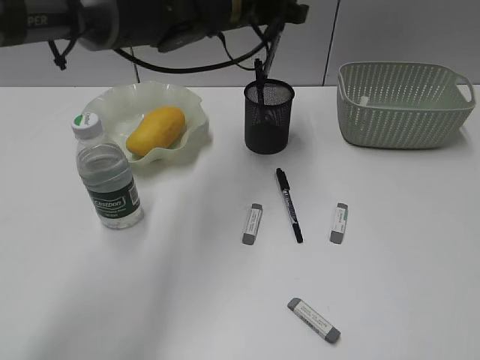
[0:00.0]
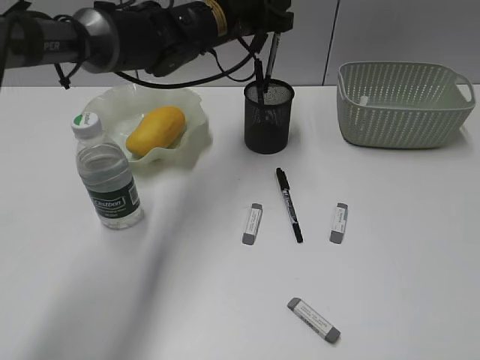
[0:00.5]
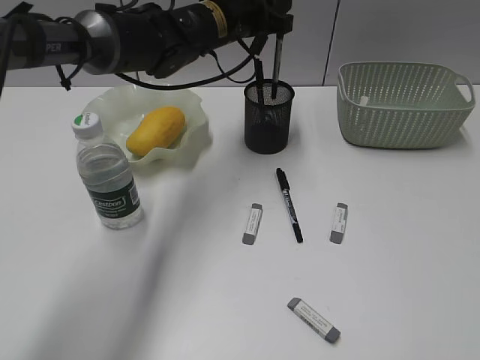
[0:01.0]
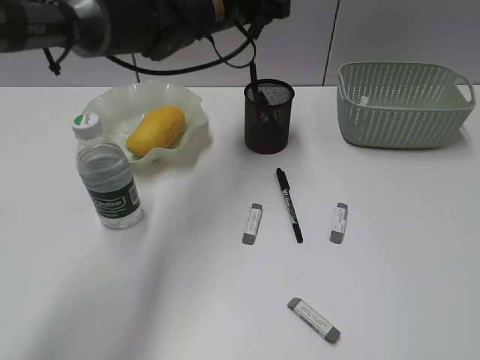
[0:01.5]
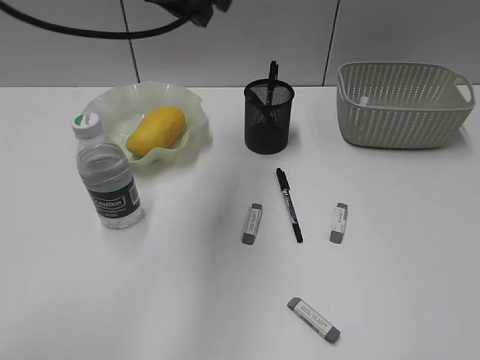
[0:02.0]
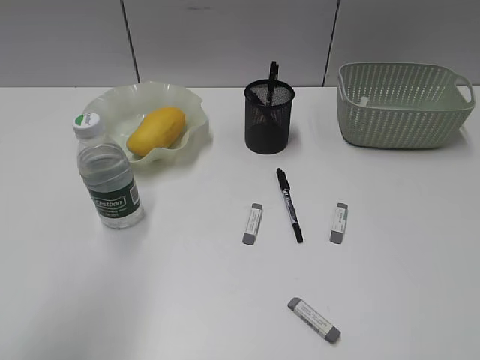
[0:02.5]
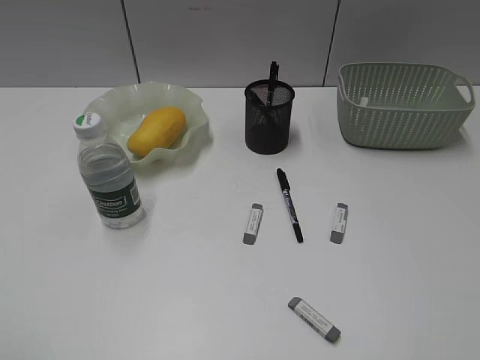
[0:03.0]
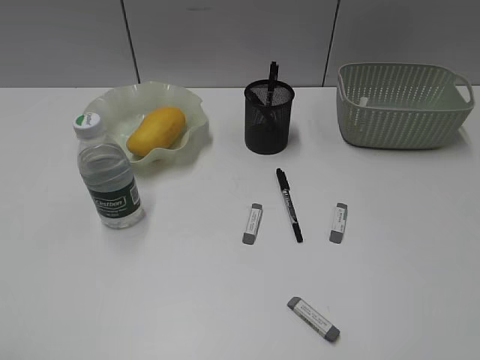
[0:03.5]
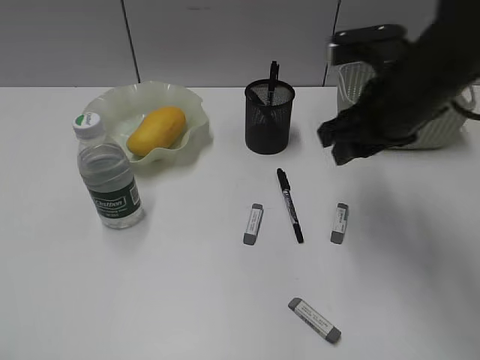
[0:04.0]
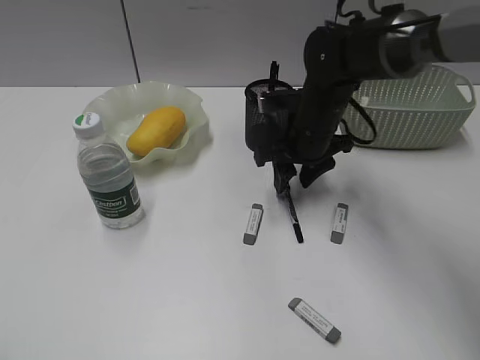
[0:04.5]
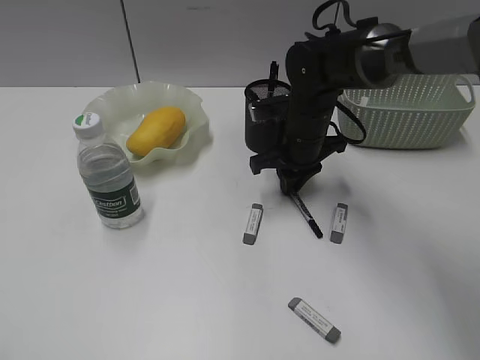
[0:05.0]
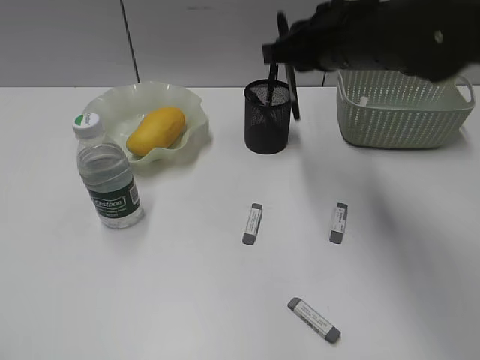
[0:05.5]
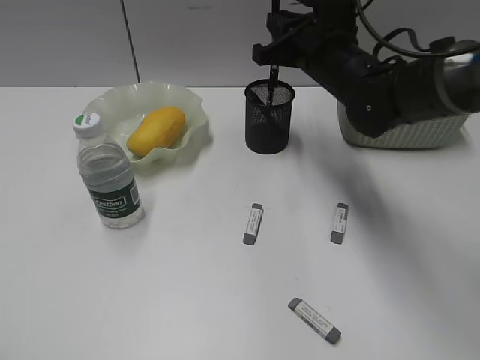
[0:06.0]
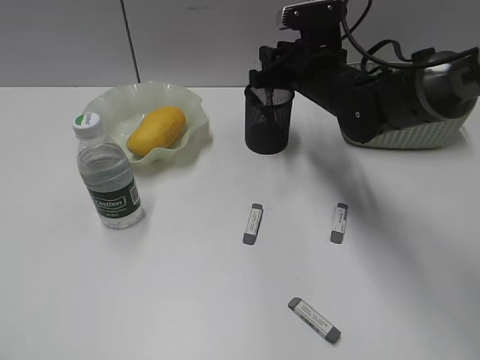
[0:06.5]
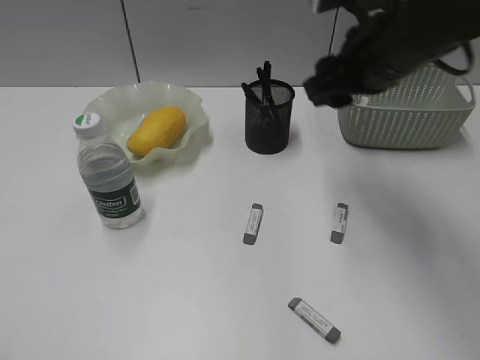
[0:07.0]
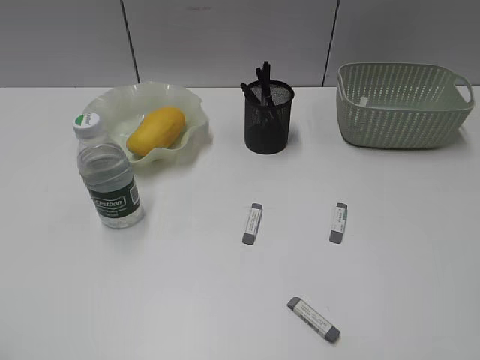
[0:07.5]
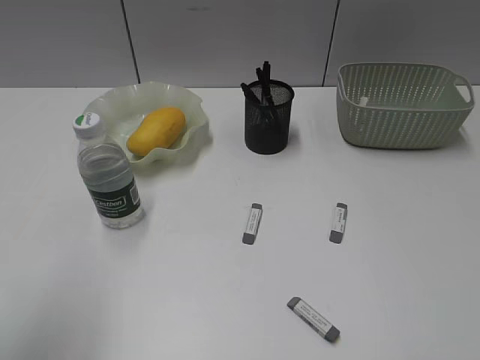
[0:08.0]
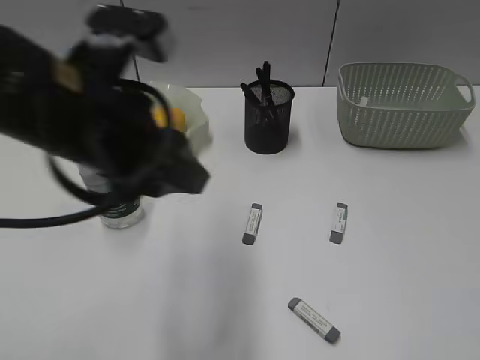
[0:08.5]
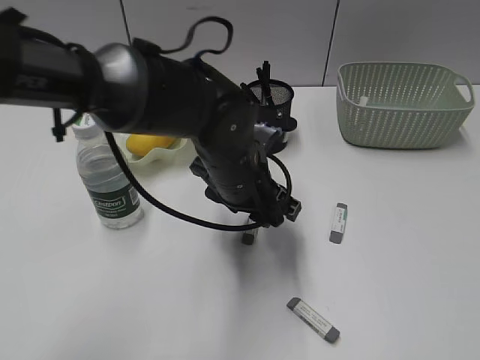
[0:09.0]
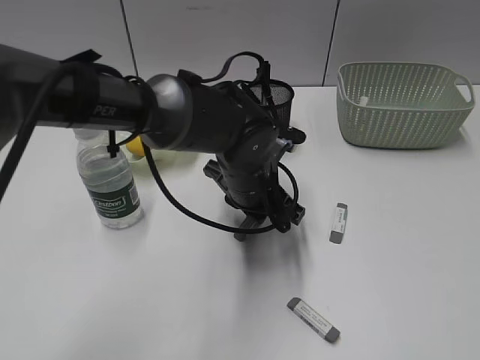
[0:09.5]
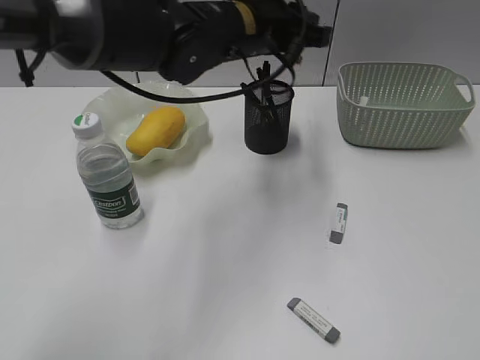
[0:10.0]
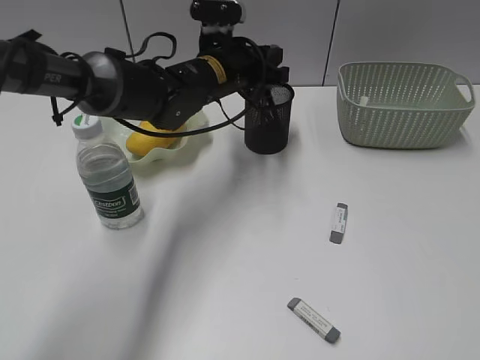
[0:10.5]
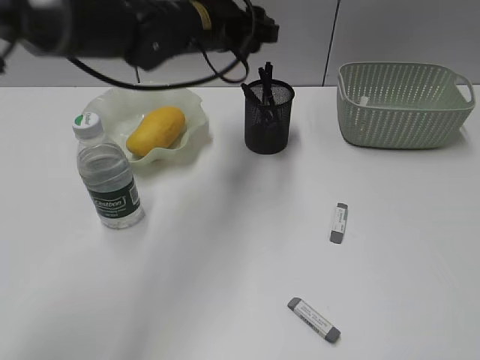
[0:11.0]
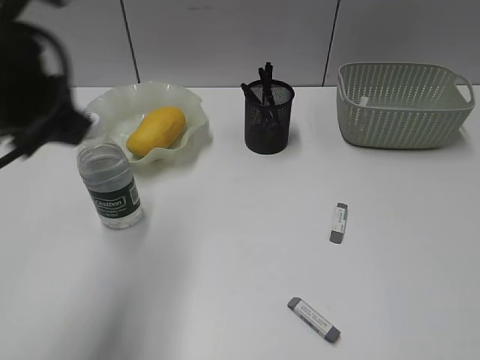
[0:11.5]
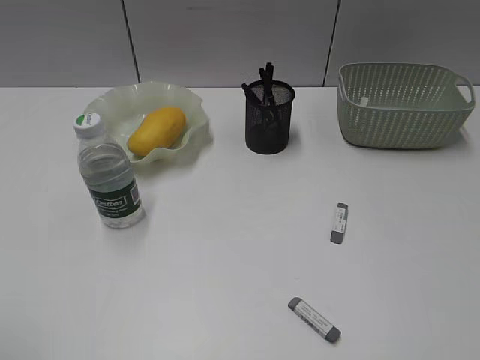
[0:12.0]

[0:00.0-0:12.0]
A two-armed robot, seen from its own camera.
Step, 1.5 to 4.5 s: Grasp the black pen with right gripper.
Step, 5.0 to 6.5 s: Place the black pen in pen holder with right gripper.
Step, 7.0 to 9.5 s: Grasp the eraser with left gripper.
Step, 10.0 to 10.5 s: Place the eraser in pen holder with left gripper.
0.0 to 2.0 s: The left gripper shifts approximately 15 cm backward, upward and to the left.
2.0 to 4.0 s: The left gripper heads backward and to the left, covering some 40 cm. Meanwhile the right gripper goes approximately 35 cm forward and to the left.
4.0 to 6.0 s: The right gripper goes up and down, some 15 cm each way, reversing 2 times, and closes.
6.0 to 8.0 s: The right gripper travels backward and to the right by roughly 50 cm, and opens up; the left gripper shifts approximately 15 cm forward and to the right.
8.0 to 10.0 s: The left gripper is displaced forward and to the right by some 40 cm.
10.0 to 12.0 s: The left gripper travels backward and to the left by approximately 50 cm, and opens.

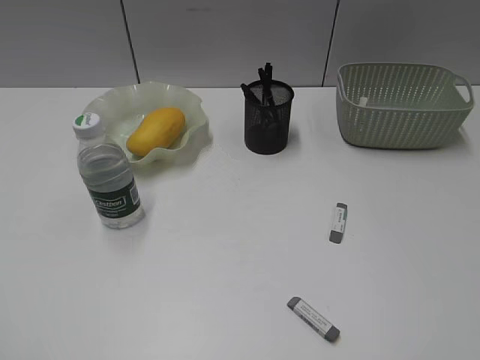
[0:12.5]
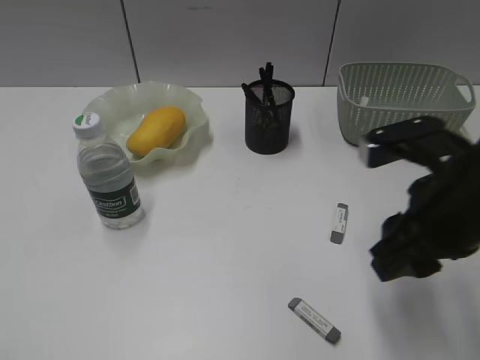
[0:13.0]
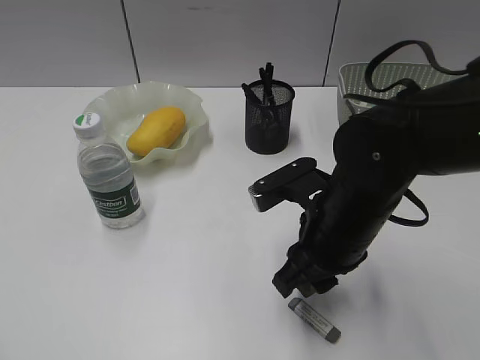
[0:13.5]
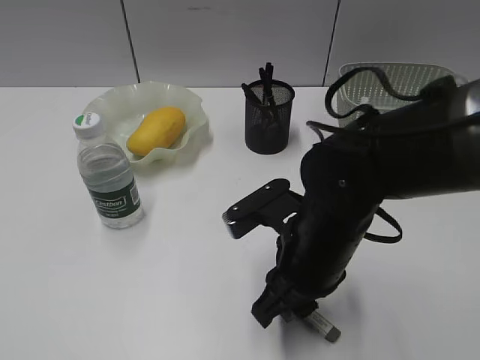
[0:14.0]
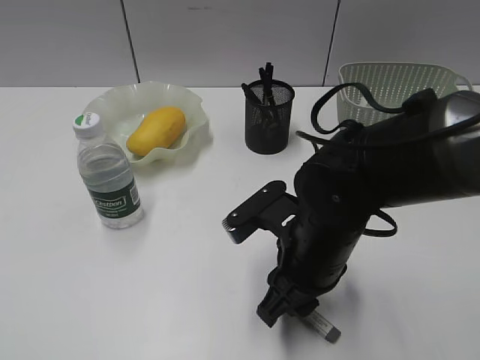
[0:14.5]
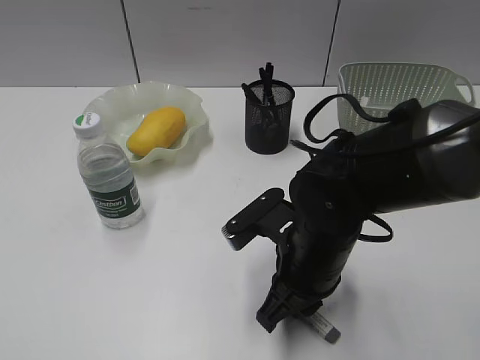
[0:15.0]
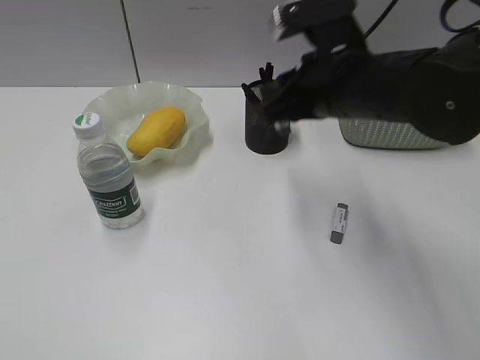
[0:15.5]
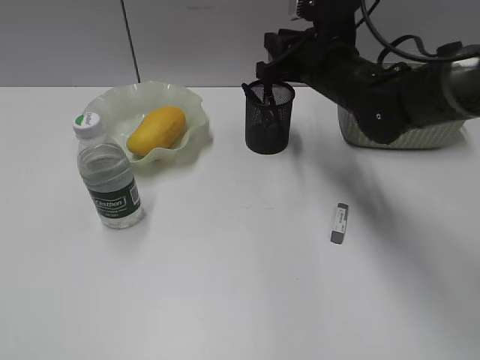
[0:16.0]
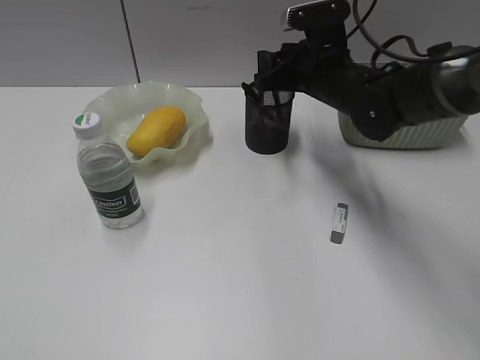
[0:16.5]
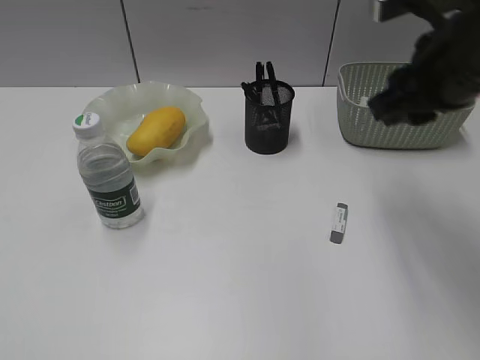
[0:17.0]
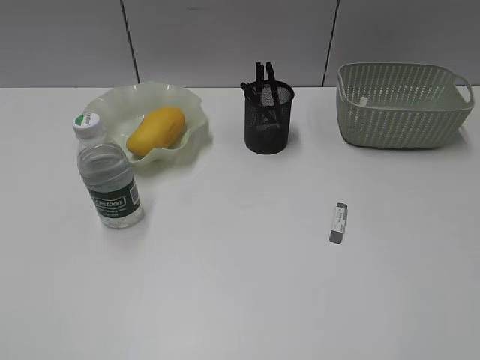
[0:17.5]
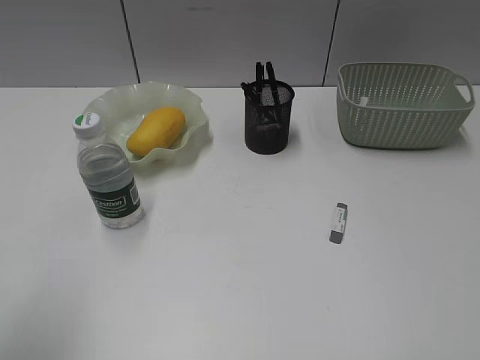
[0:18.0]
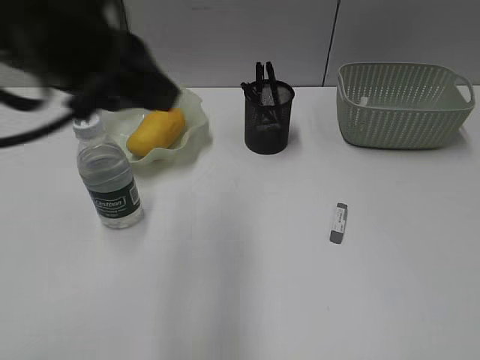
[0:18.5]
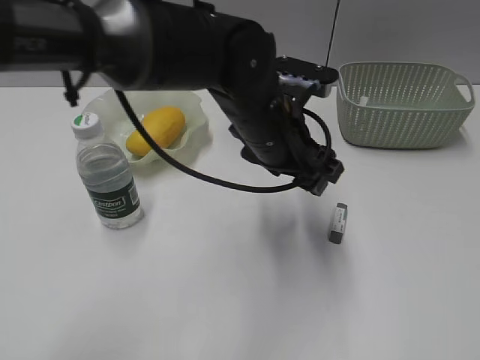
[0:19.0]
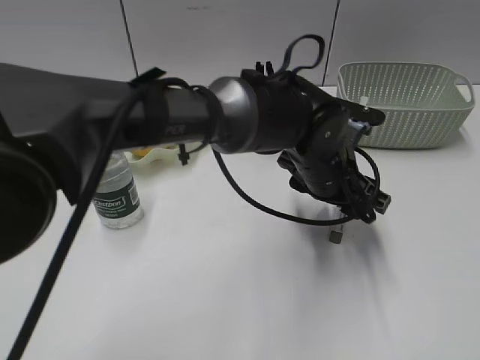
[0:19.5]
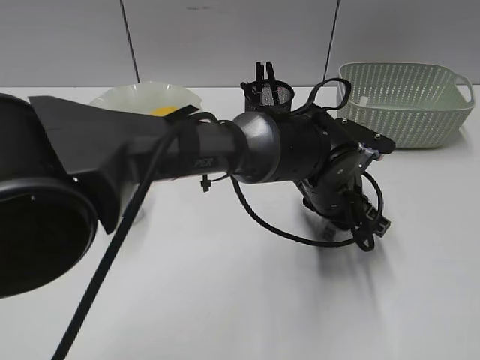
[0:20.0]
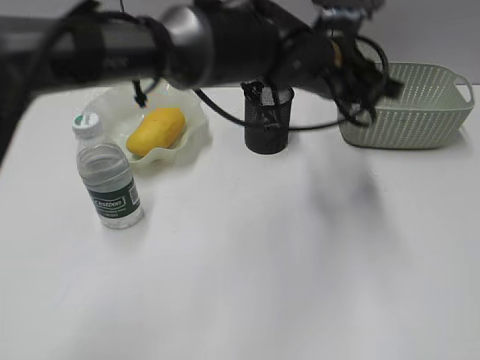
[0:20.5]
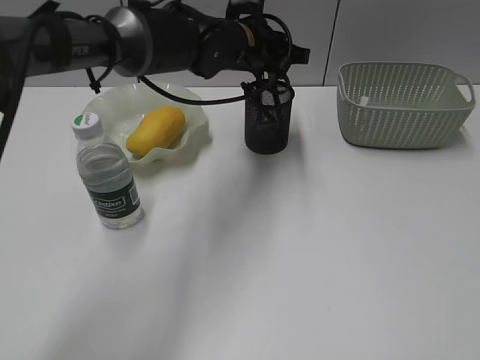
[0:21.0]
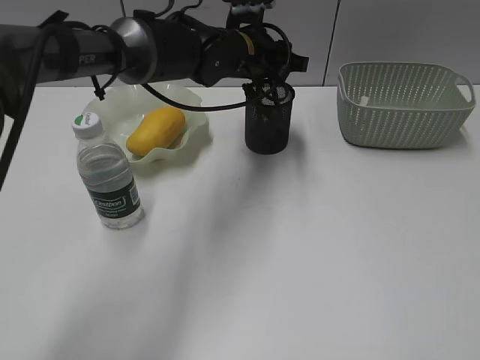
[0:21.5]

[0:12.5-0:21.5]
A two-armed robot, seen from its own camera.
Step, 12.5 to 15.0 s: Grasp the eraser with right gripper.
Step, 15.5 to 16.5 s: Place the eraser in pen holder with right gripper.
Step, 17.0 to 20.0 s: Grasp the eraser with left gripper.
12.5 to 14.5 s: The right gripper travels to the left, forward and downward by some 35 cm.
14.5 to 17.0 s: The right gripper shifts about 20 cm upward and to the right, and travels forward and back again, about 20 cm each way.
17.0 to 19.5 s: The right gripper travels backward and to the right by roughly 30 cm; the left gripper travels to the right and forward by some 50 cm, and opens.
19.5 to 21.5 s: The left gripper is displaced forward, to the left and upward by roughly 20 cm, and closes, then opens again.

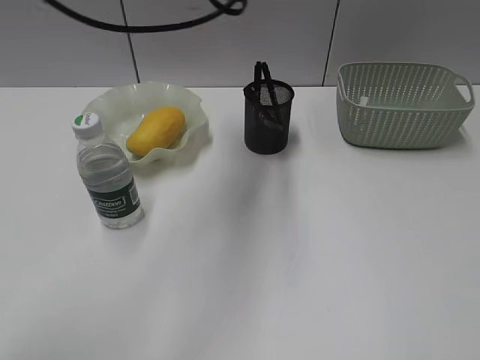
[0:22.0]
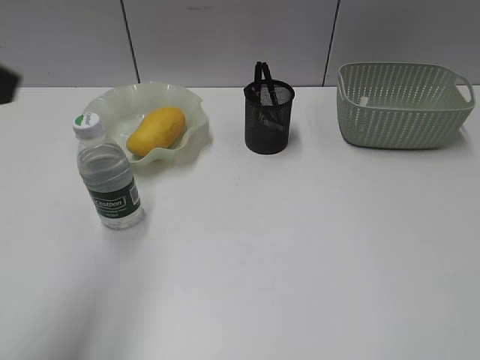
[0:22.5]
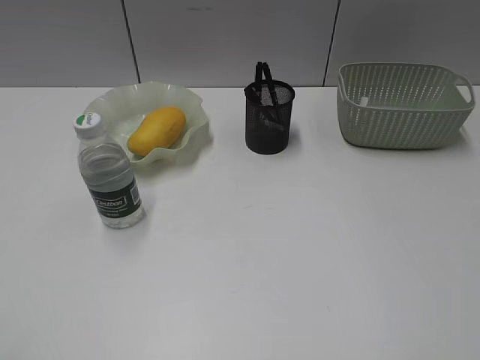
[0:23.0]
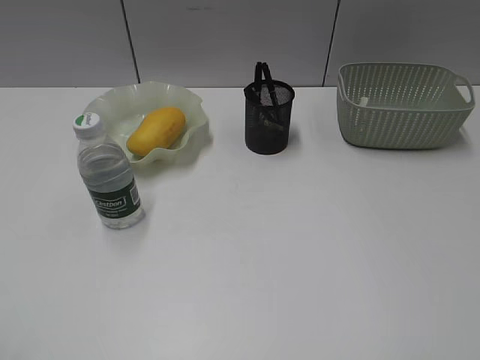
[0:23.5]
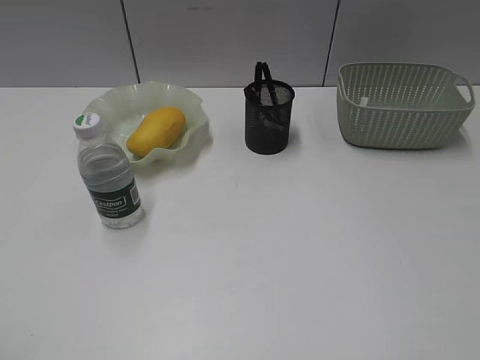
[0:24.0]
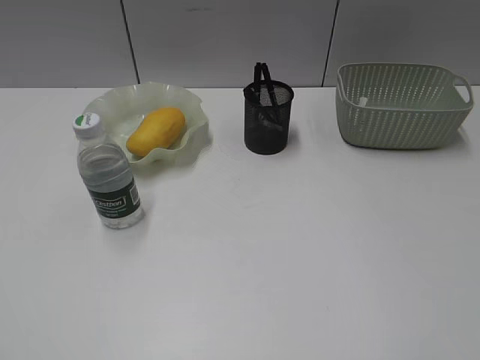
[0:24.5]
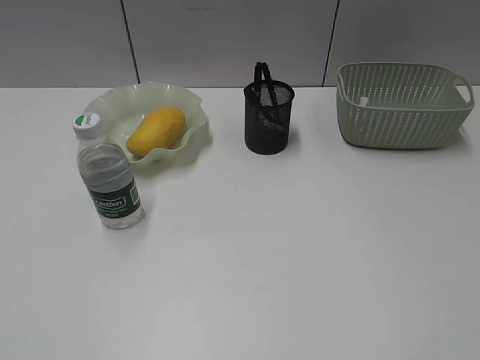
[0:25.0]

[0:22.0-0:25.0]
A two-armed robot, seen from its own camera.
22.0 to 23.5 s: The left gripper goes some 50 cm backward and to the left.

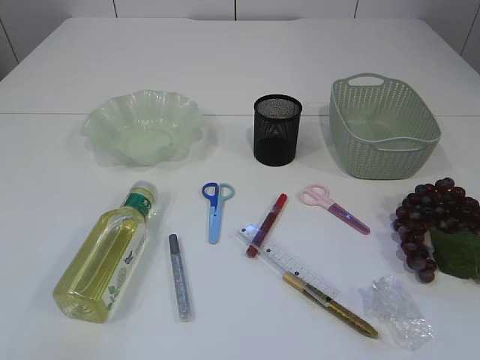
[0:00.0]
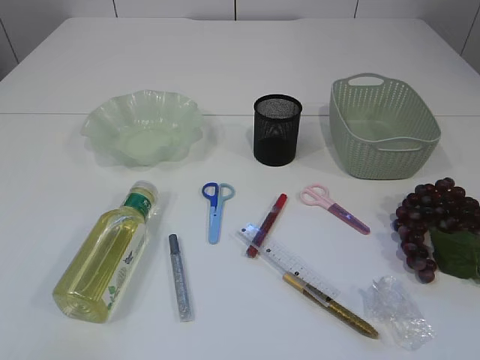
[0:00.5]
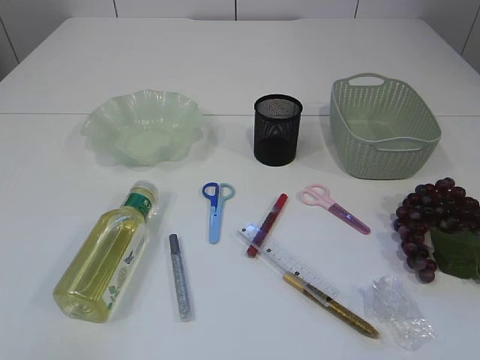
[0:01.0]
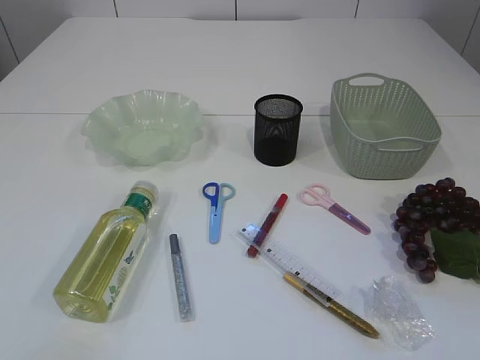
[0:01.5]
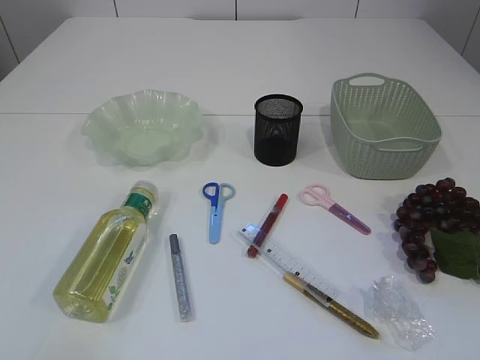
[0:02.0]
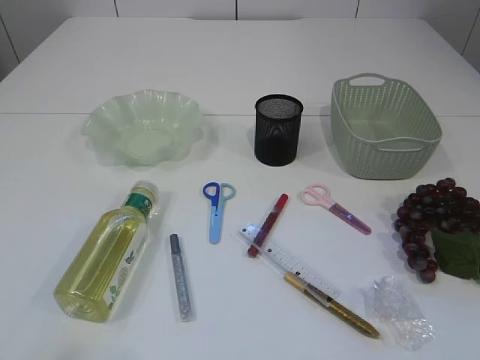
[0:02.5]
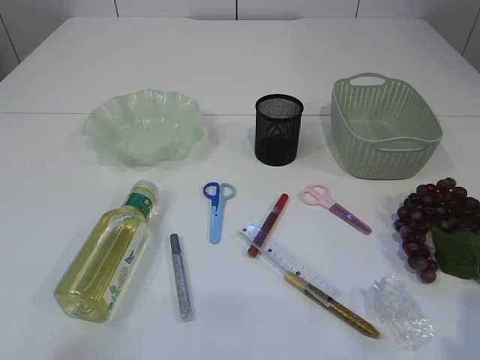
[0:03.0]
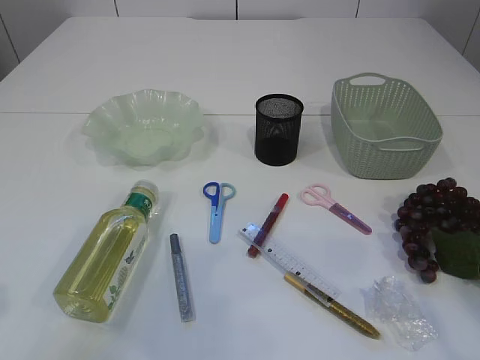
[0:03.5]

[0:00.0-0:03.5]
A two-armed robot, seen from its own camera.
2.0 to 3.5 s: Both grippers travel together forward, about 15 cm.
